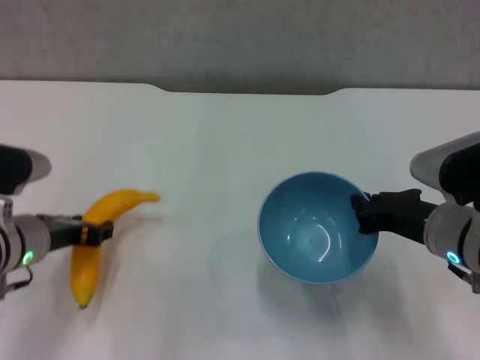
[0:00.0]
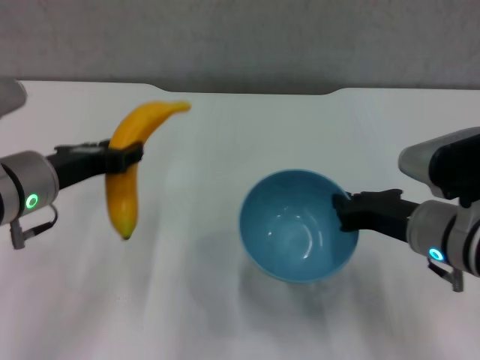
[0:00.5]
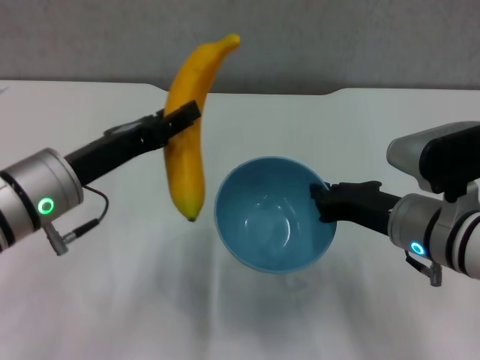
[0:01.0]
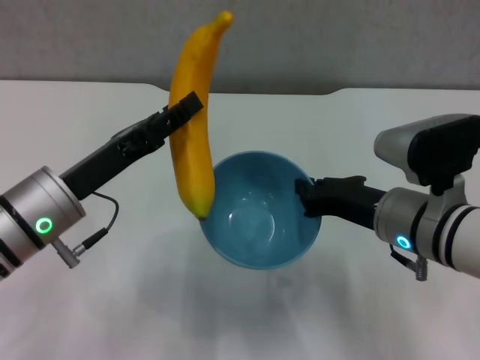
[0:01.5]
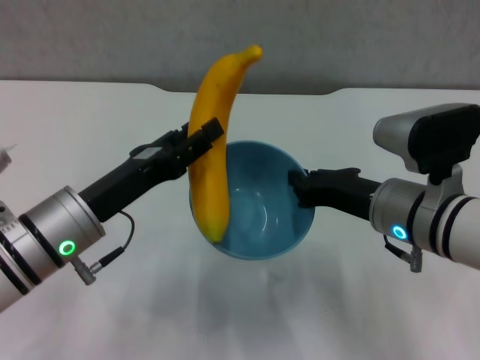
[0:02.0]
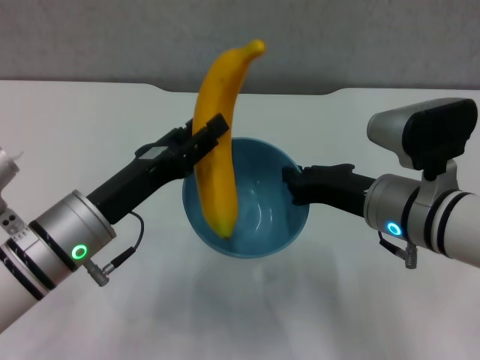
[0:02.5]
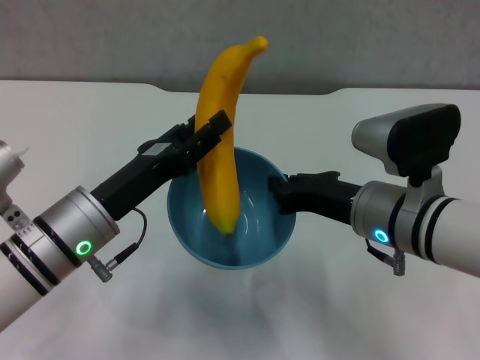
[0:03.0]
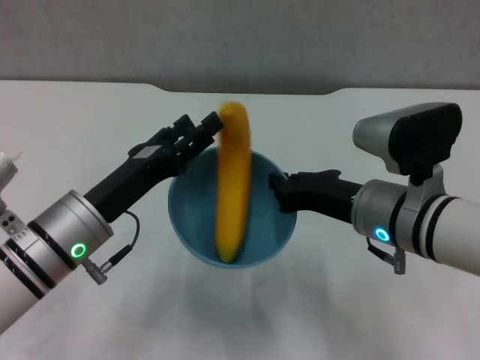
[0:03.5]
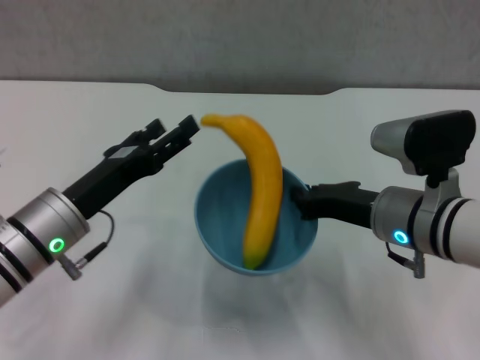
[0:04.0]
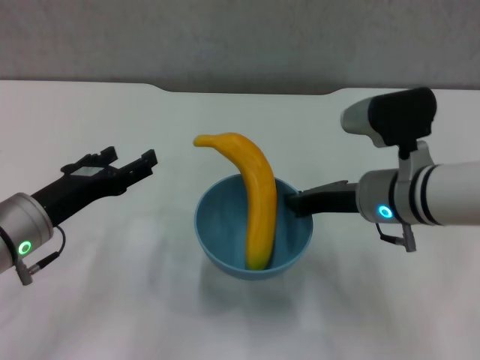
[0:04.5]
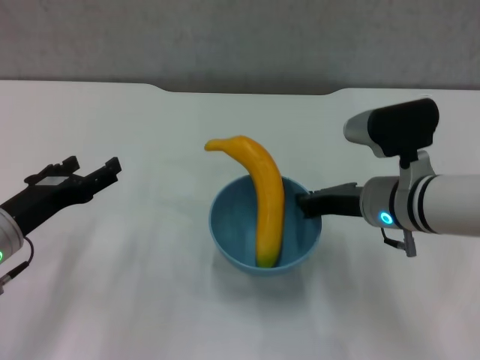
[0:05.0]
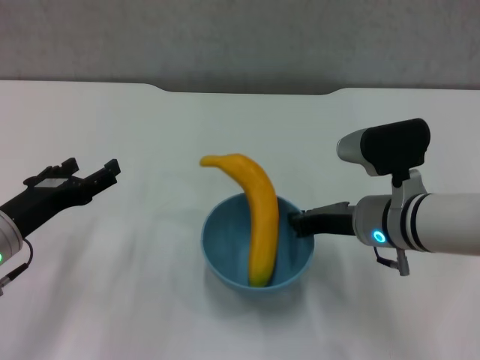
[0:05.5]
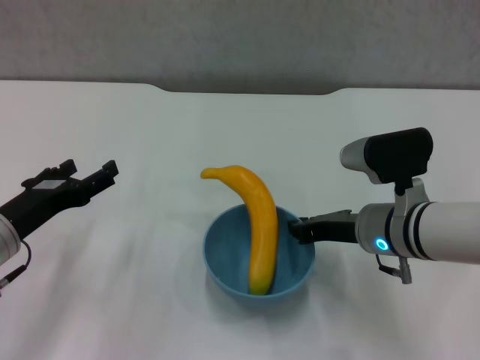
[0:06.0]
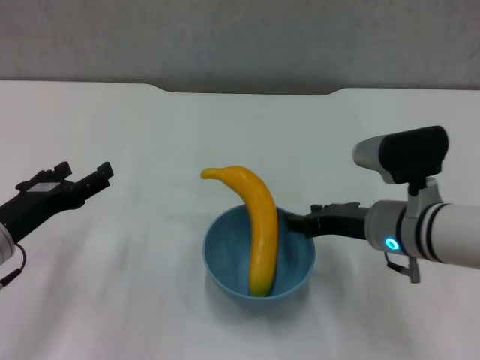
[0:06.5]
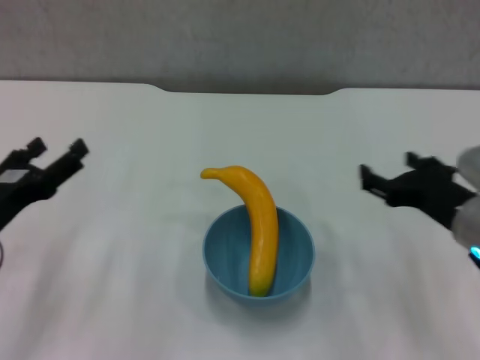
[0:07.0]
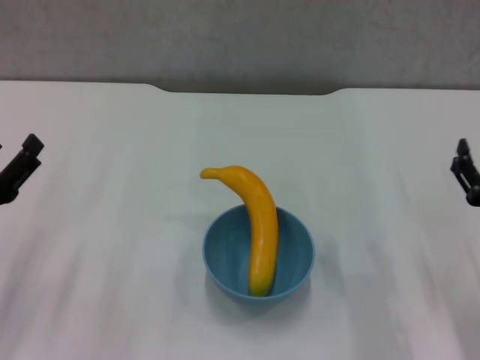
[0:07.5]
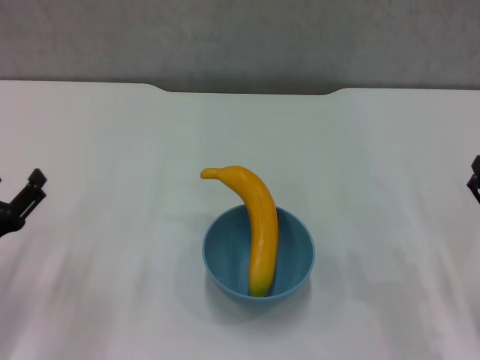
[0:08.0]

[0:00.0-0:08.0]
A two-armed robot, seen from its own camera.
Step, 0:00.0 to 0:03.5: Place the banana in the blue bowl with left gripper.
Step, 0:04.0 to 0:06.5: Place the bowl on the table with right gripper.
0:00.0 to 0:02.0: The right gripper shifts by some 5 cm, while the left gripper moves to the right, about 5 cm.
0:02.0 to 0:04.0: The left gripper opens.
0:04.0 to 0:06.0: The right gripper moves some 5 cm. The left gripper heads to the left, covering approximately 5 cm.
0:06.0 to 0:08.0: The left gripper moves approximately 5 cm, while the right gripper goes some 20 cm to the right and backward, and opens its fingers.

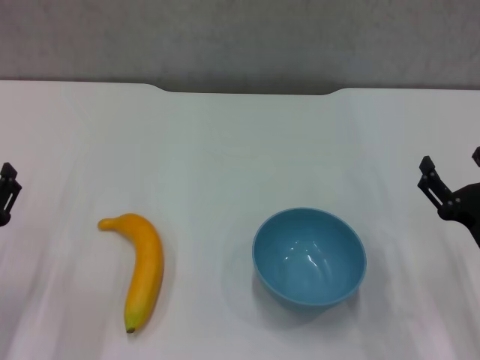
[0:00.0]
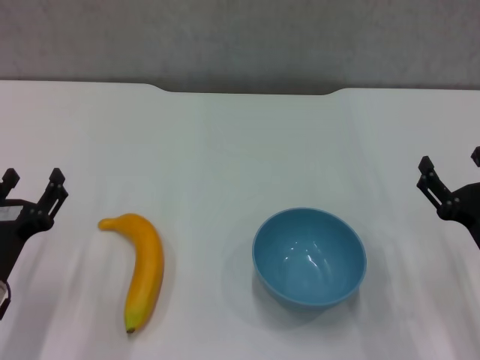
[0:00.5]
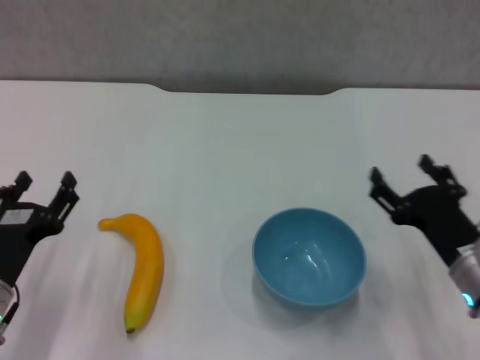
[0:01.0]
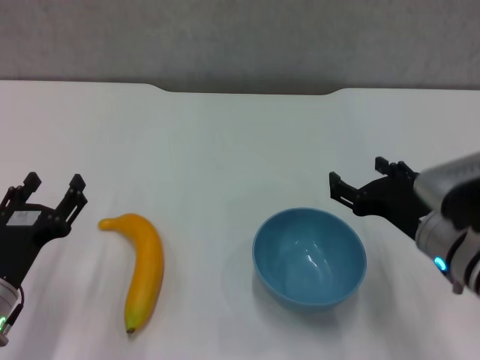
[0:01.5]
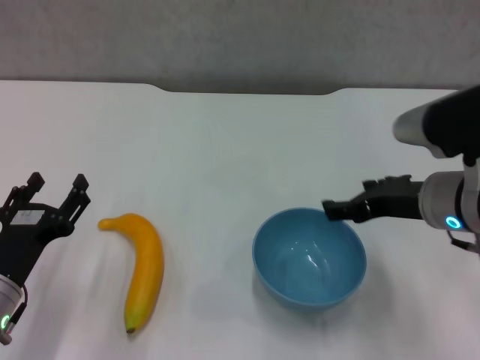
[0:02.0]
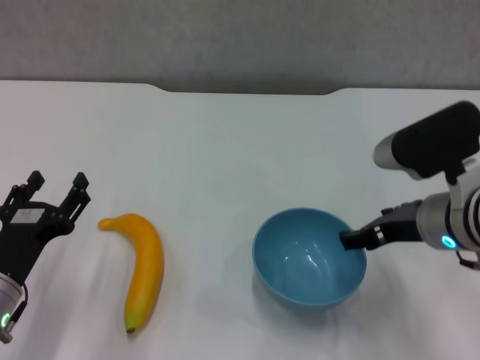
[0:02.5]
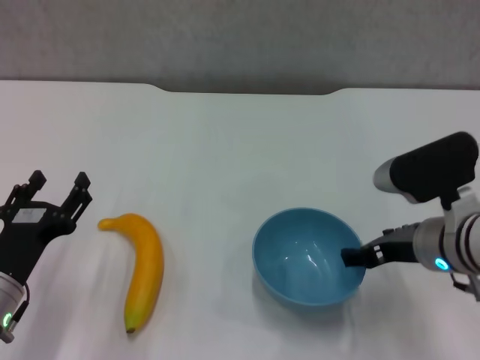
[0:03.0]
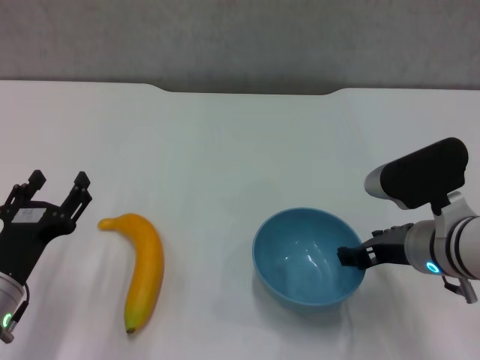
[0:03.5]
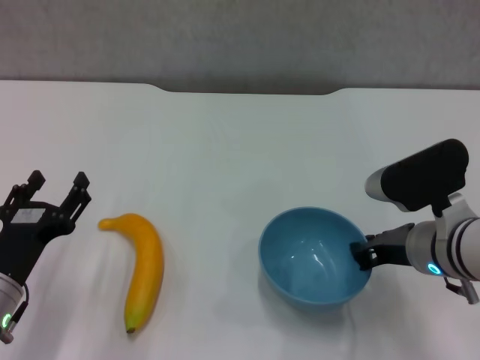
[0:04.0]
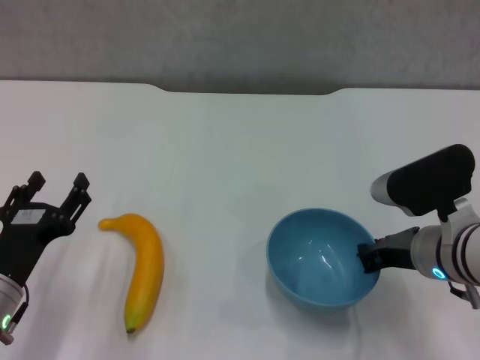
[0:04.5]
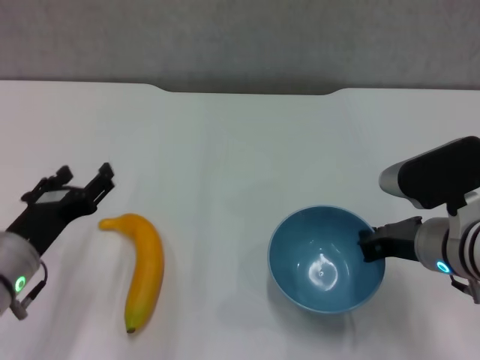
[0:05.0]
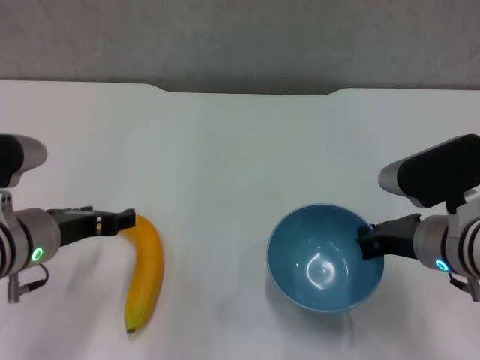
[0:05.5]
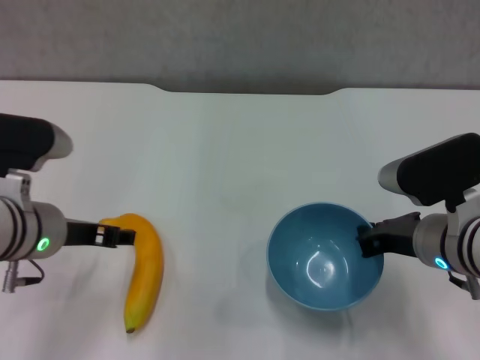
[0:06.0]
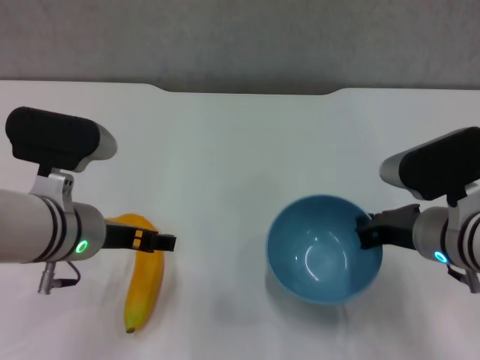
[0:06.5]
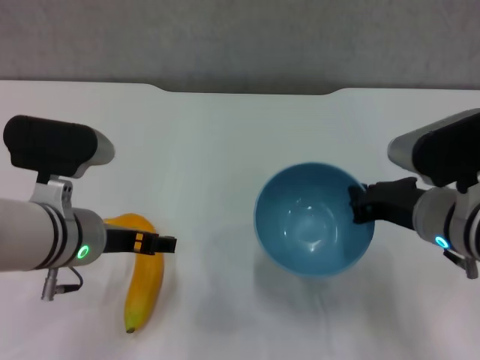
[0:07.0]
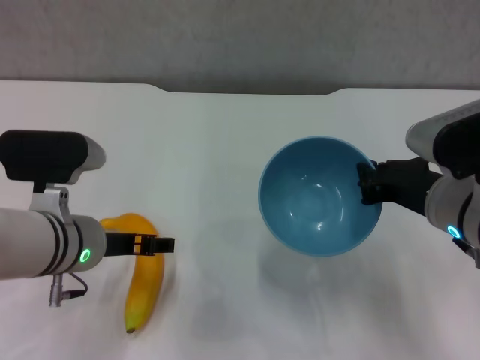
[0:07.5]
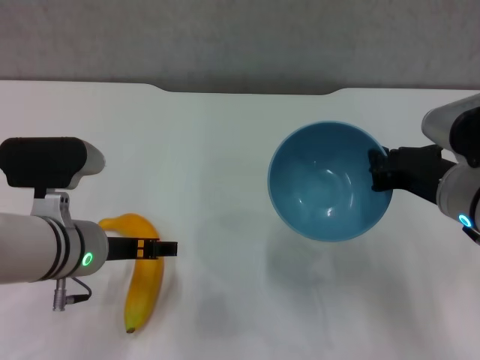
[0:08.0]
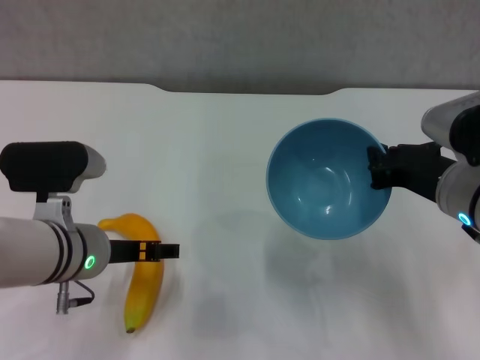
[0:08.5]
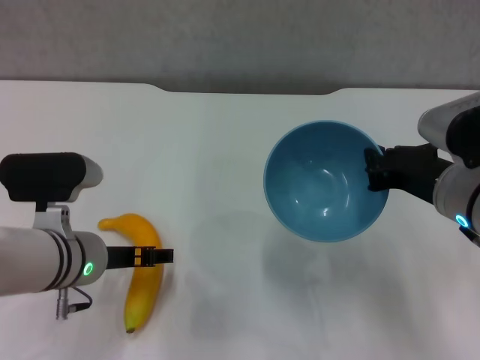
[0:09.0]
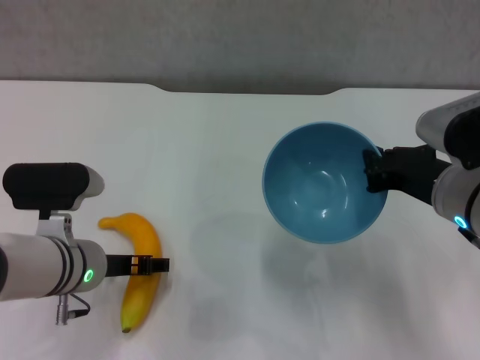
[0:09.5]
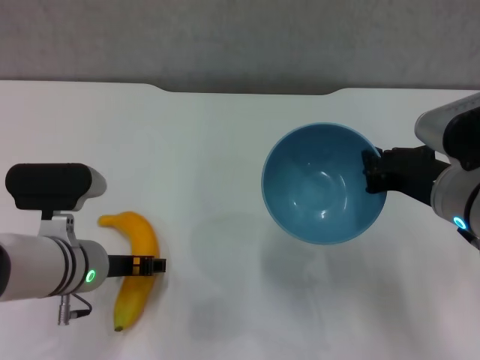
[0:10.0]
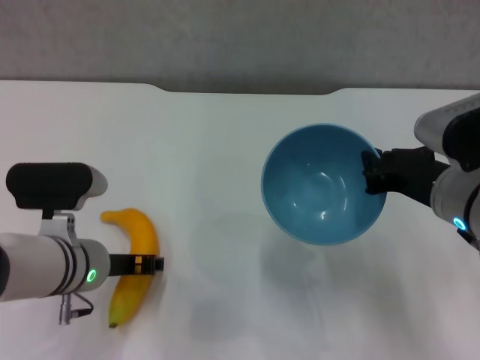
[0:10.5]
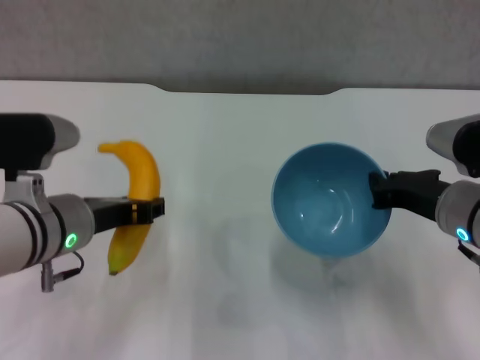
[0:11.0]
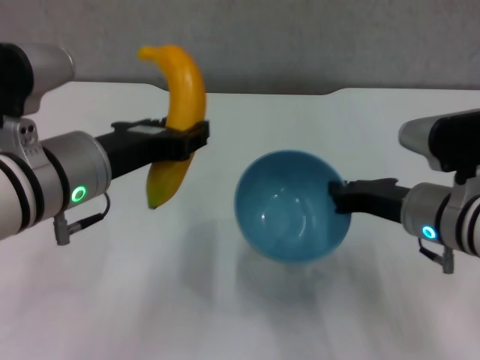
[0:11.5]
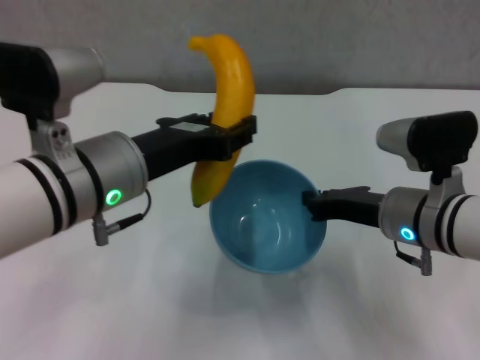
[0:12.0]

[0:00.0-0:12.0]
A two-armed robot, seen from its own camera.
Step, 0:00.0 to 0:04.5: Grasp the blue bowl with right gripper.
Step, 0:05.0 to 0:08.0: Lift the blue bowl with right gripper.
Step, 0:08.5 to 0:10.0: Grasp the banana with left gripper.
0:00.0 to 0:02.0: The right gripper is displaced upward, to the left and forward by some 15 cm.
0:02.0 to 0:04.0: The right gripper moves downward, approximately 5 cm, and closes.
0:04.0 to 0:06.0: The right gripper closes its fingers. The left gripper goes about 10 cm upward and forward.
0:08.0 to 0:10.0: There are only small adjustments of the grippers.
0:10.0 to 0:12.0: The right gripper ends up approximately 5 cm from where it was. The left gripper is displaced upward by about 15 cm, and closes.

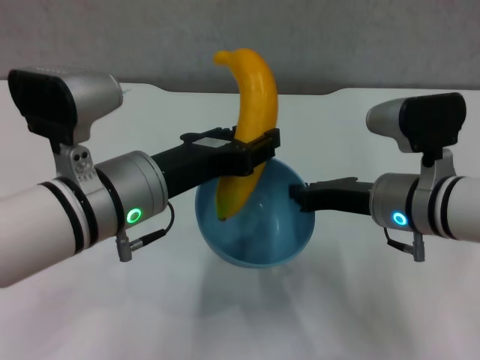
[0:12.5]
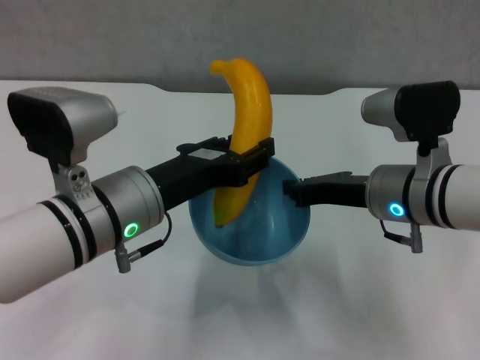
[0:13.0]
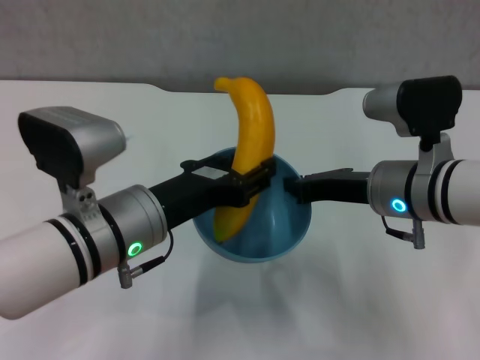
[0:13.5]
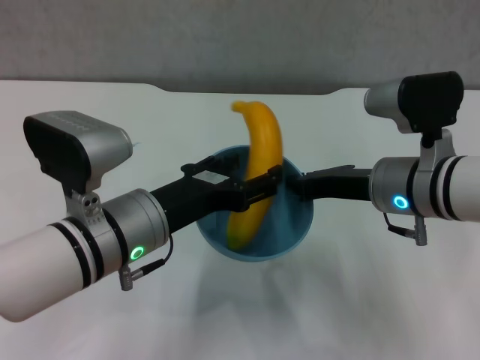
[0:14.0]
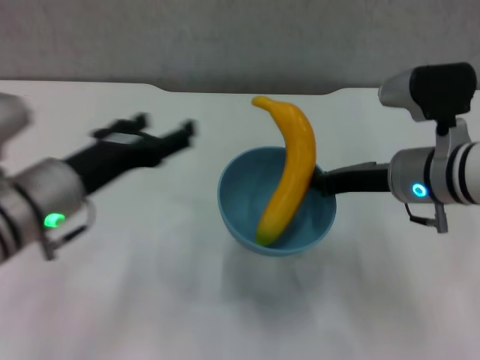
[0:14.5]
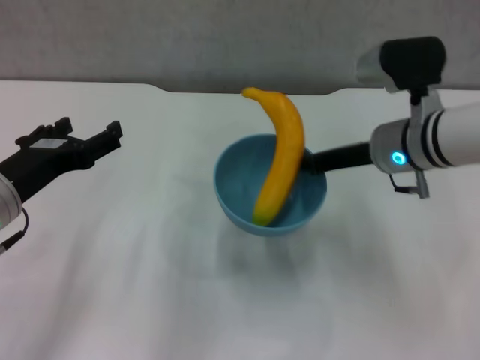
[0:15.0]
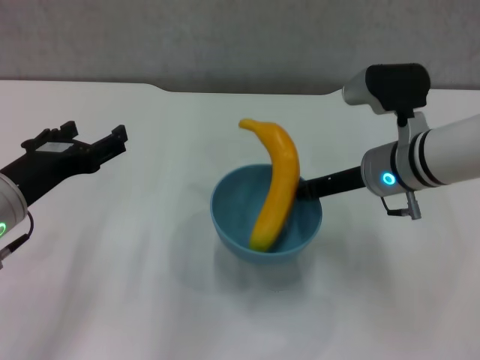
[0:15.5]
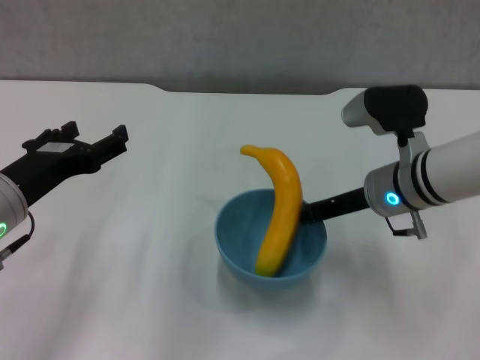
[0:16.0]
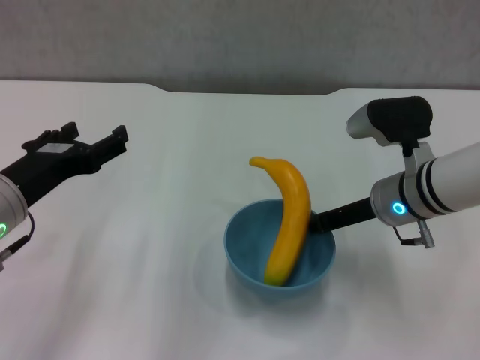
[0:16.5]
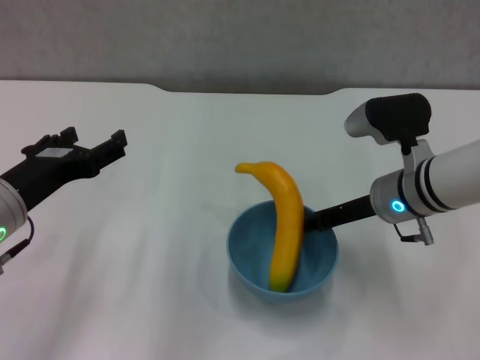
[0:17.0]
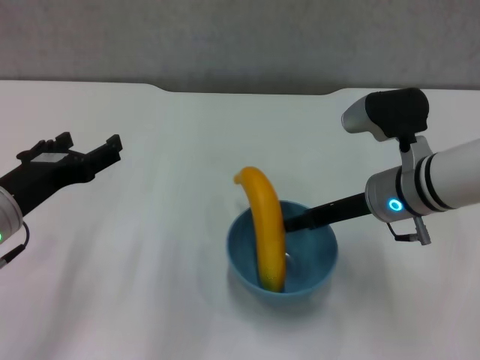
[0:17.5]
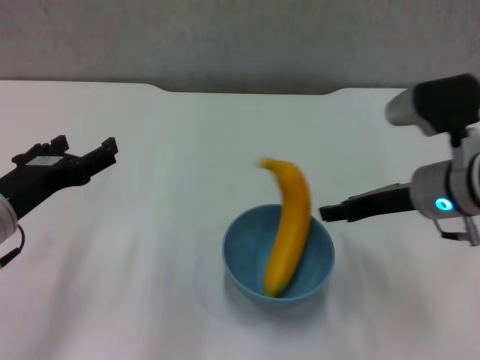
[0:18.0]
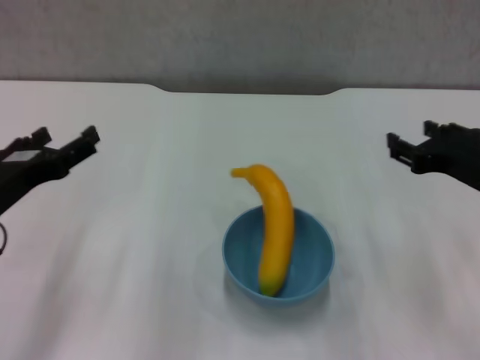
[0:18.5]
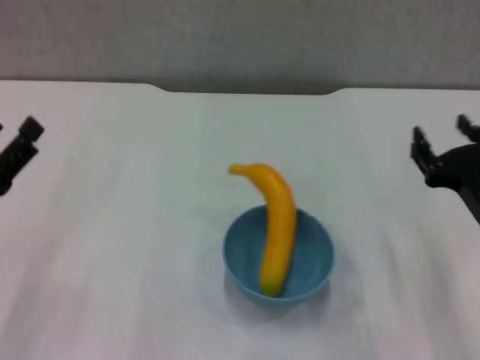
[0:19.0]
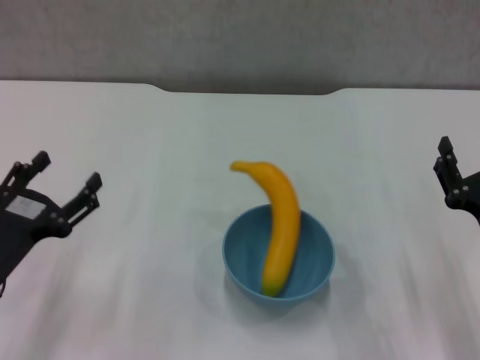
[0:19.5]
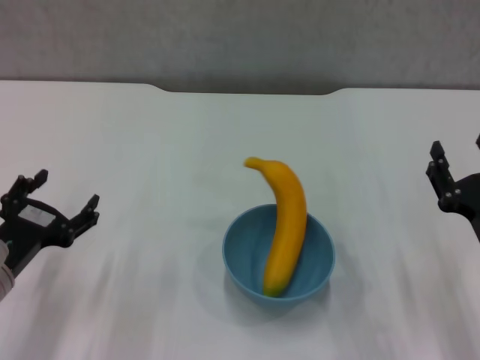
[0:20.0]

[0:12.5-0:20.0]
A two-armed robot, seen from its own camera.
Step, 0:14.5 to 0:18.0: Place the bowl on the table with right gripper.
0:12.5 to 0:14.5: The left gripper moves to the left, some 5 cm, and opens.
0:14.5 to 0:16.5: The right gripper ends up about 5 cm from where it was. The left gripper moves some 5 cm.
0:16.5 to 0:18.0: The right gripper changes place by approximately 5 cm, and opens its fingers.
0:18.0 to 0:20.0: The right gripper heads backward and downward, covering about 15 cm; the left gripper moves downward, some 5 cm.
